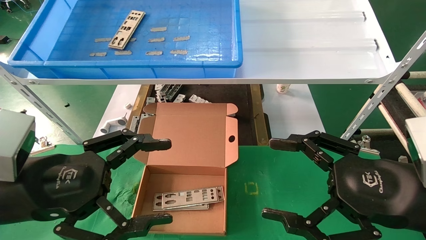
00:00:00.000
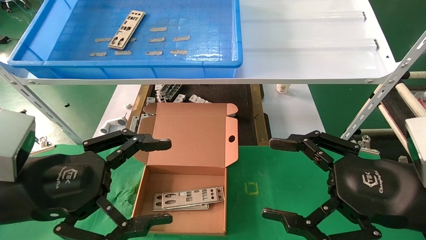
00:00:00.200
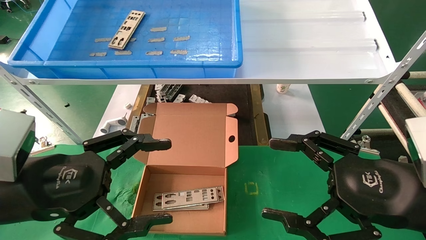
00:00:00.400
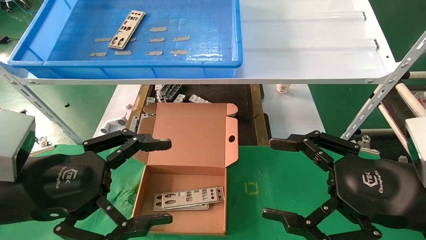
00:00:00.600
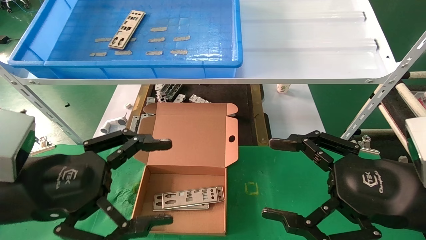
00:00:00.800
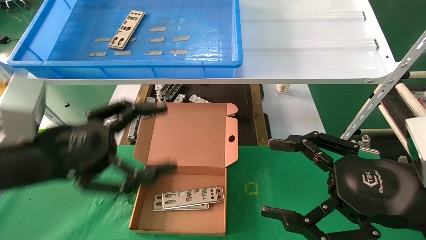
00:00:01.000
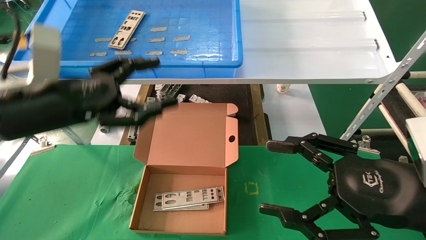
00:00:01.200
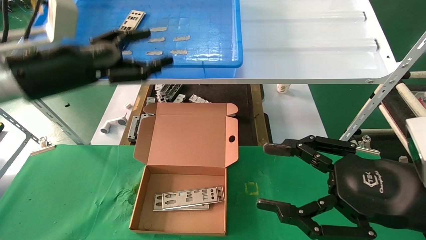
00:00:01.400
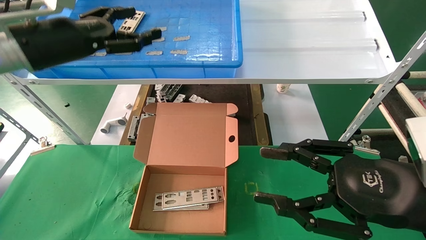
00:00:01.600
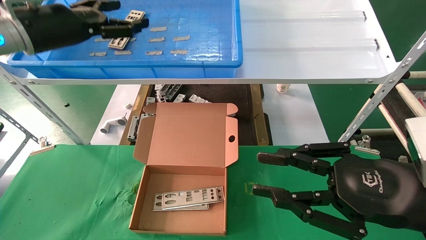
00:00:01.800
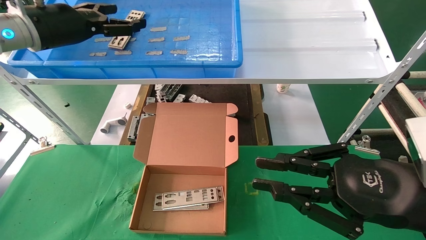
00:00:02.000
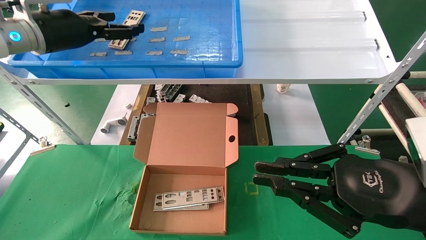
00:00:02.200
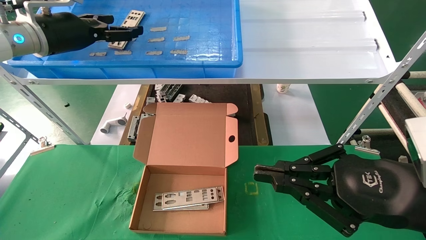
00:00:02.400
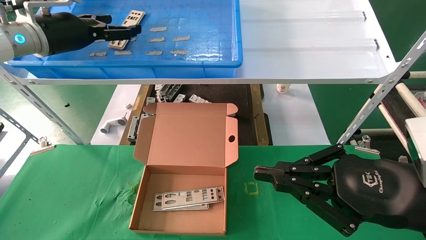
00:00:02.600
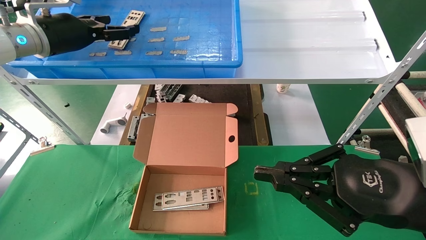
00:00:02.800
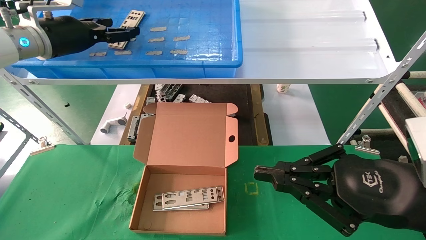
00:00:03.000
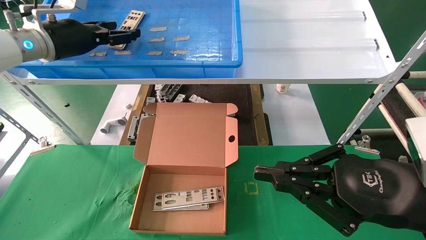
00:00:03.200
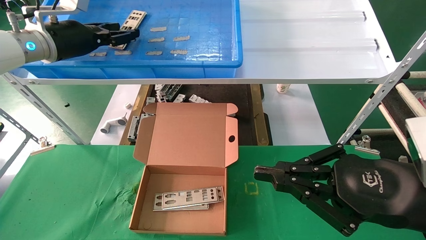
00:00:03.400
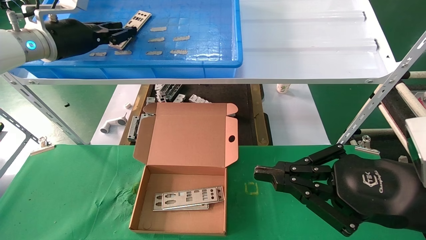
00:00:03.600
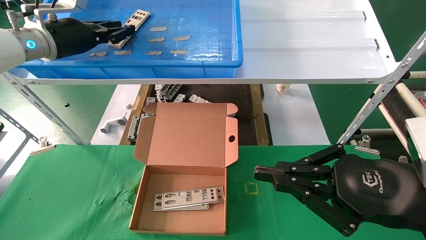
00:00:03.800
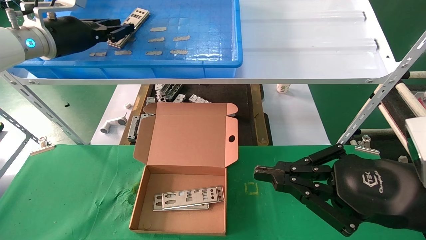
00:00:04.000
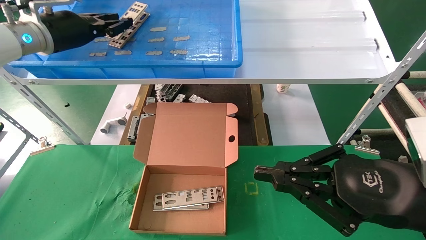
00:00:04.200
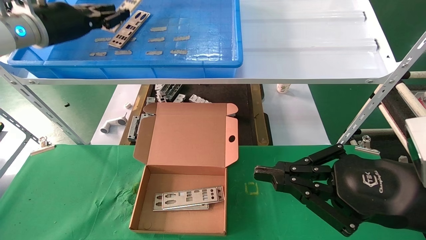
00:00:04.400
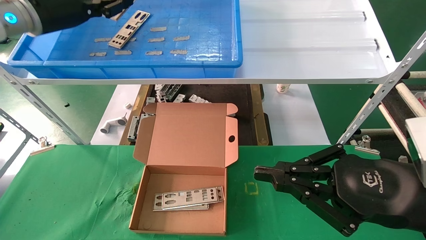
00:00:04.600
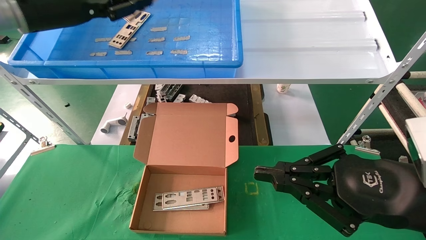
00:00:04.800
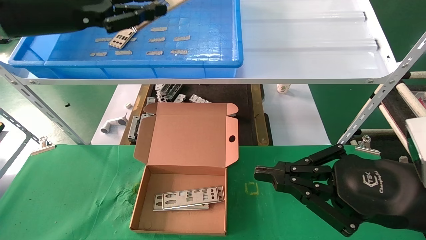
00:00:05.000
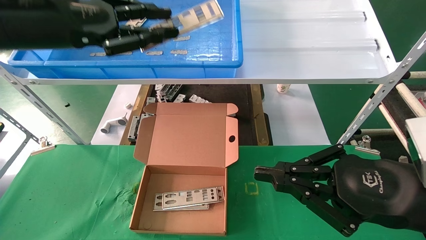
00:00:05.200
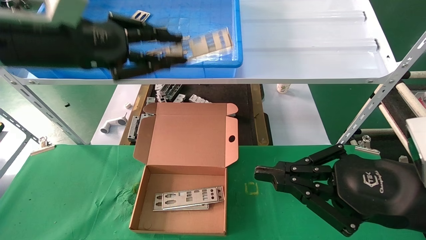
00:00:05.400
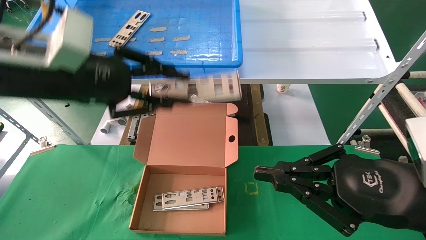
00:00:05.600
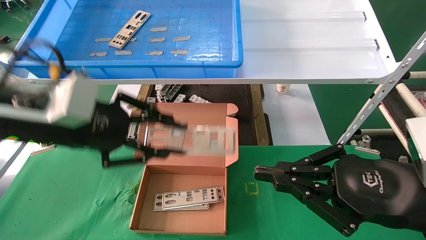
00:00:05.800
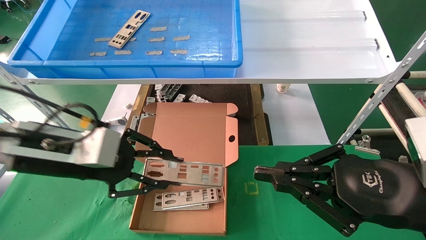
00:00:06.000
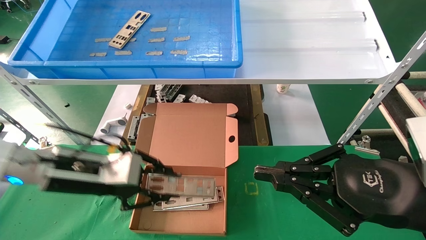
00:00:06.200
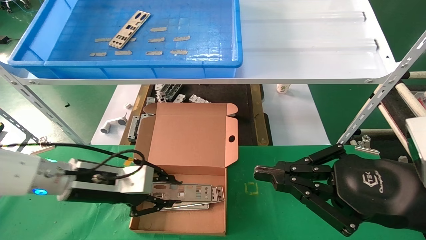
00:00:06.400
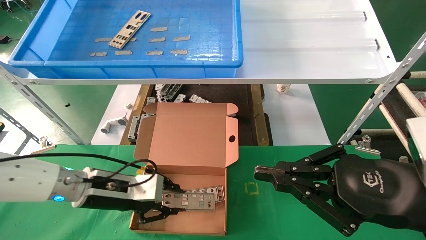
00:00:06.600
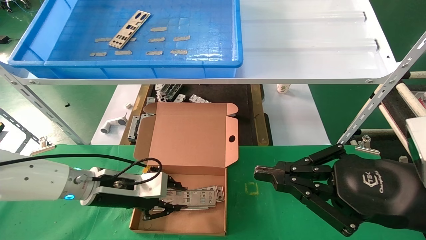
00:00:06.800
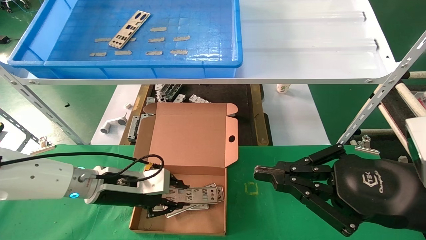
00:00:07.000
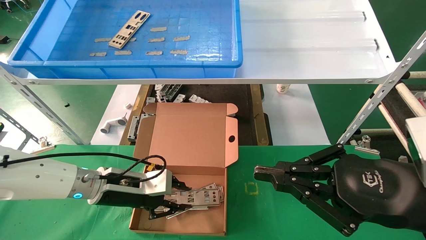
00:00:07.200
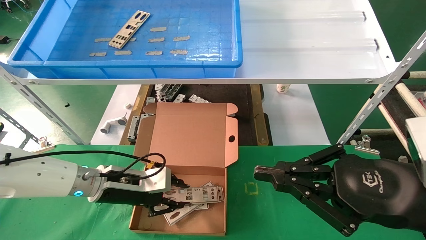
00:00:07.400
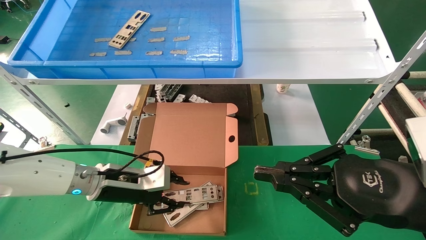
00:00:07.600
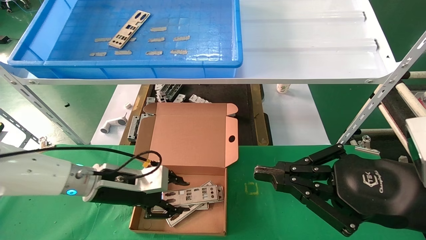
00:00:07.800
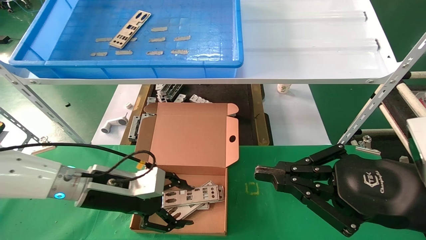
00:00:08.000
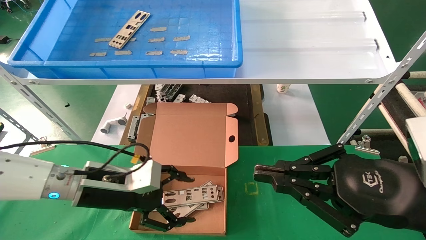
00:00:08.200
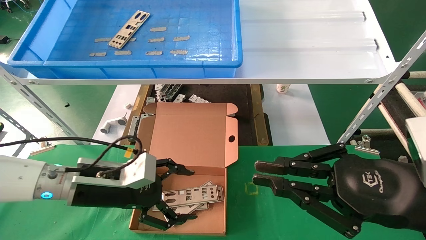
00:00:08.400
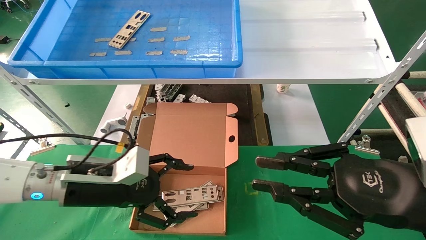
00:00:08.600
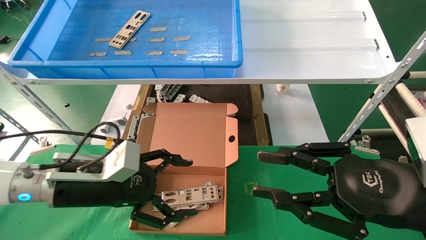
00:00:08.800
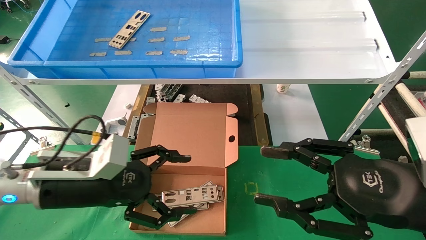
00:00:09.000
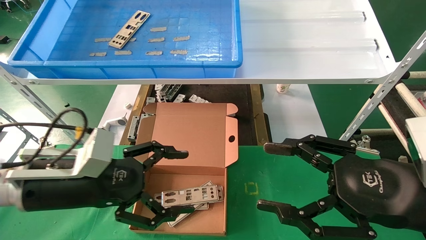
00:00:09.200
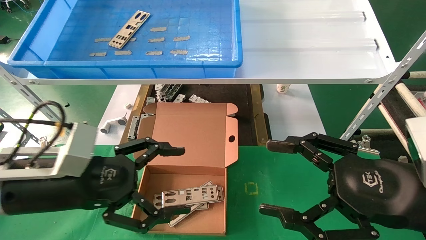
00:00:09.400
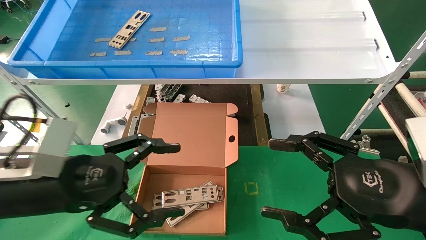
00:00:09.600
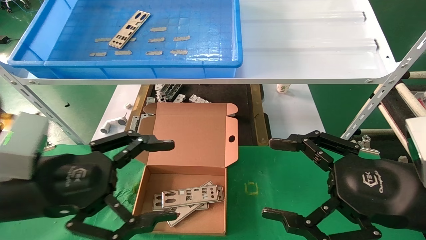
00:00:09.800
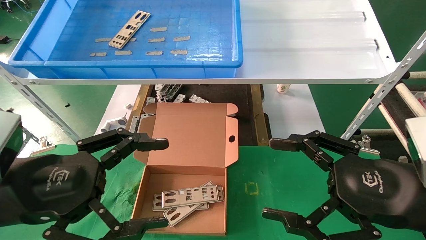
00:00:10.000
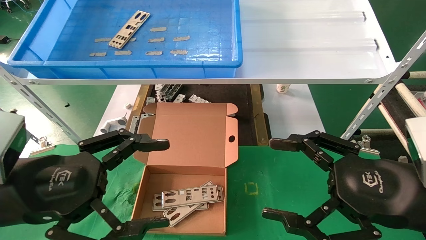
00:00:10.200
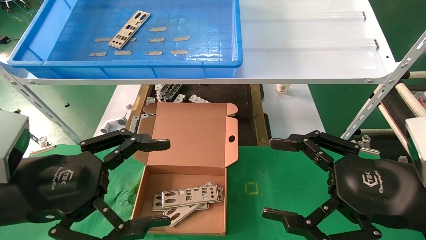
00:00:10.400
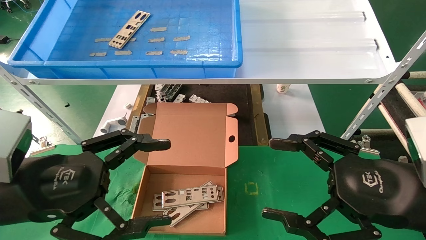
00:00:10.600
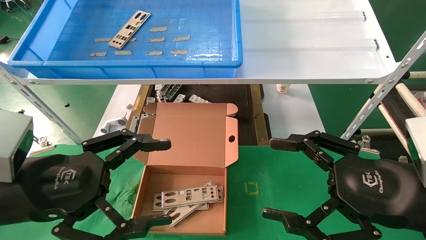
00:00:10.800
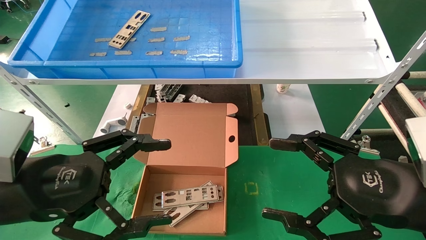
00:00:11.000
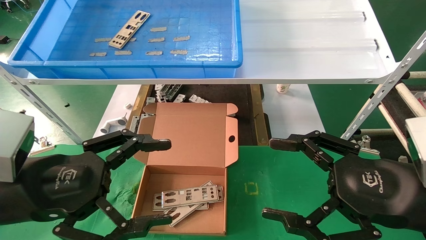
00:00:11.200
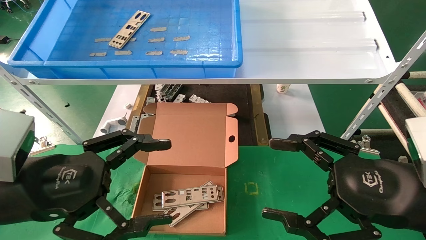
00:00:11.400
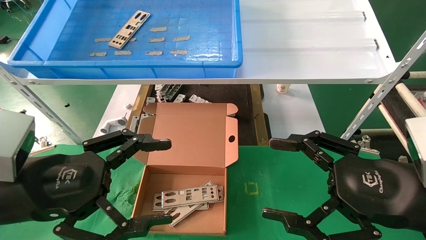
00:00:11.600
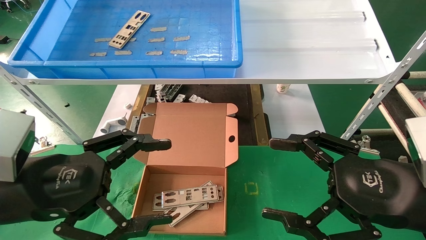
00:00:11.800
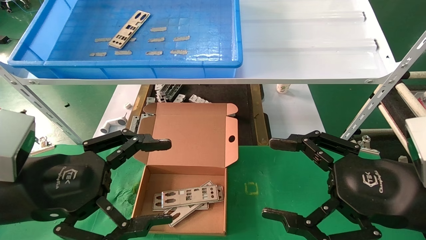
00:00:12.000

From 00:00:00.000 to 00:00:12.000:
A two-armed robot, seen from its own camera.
Task of the whole recording: pick up the parts on the tray and put them in the cardboard box.
Step, from 00:00:01.400 to 00:00:04.200: Pick up the IO bracket from the container box.
Step, from 00:00:04.400 to 00:00:07.600: Place the IO bracket into the ingredient slot.
From 00:00:00.000 to 00:00:01.600: The left gripper shifts roughly 20 cm forward and upward.
From 00:00:01.600 to 00:00:03.000: The right gripper closes. The left gripper travels forward by roughly 5 cm.
From 00:00:03.000 to 00:00:04.400: The left gripper closes.
From 00:00:04.400 to 00:00:06.000: The left gripper travels downward, backward and to the right by some 25 cm.
From 00:00:06.000 to 00:00:07.600: The left gripper moves downward and forward, approximately 15 cm.
From 00:00:07.600 to 00:00:09.000: The left gripper travels backward and upward by about 10 cm, and opens, while the right gripper opens.
From 00:00:09.000 to 00:00:10.400: The right gripper opens up. Meanwhile the left gripper heads backward, covering approximately 10 cm.
From 00:00:10.400 to 00:00:12.000: Neither gripper changes place.

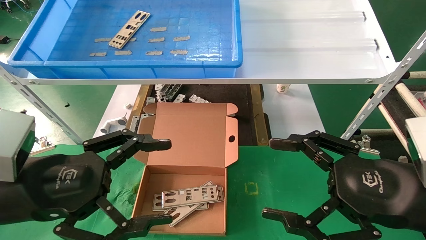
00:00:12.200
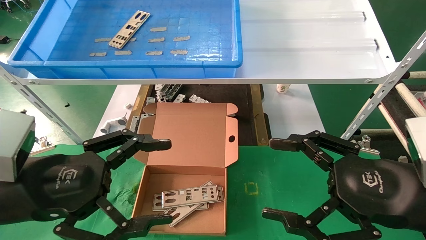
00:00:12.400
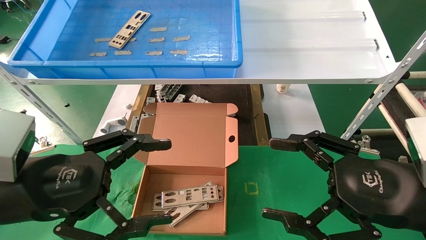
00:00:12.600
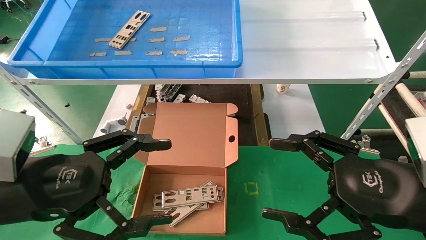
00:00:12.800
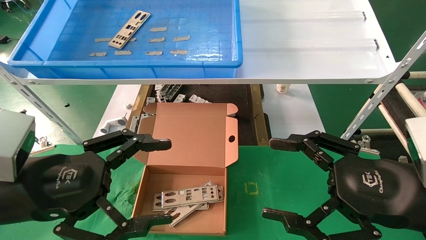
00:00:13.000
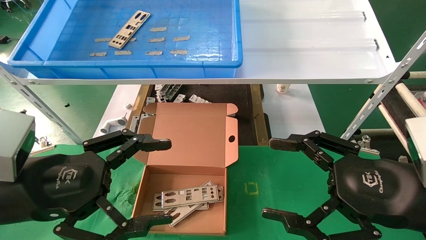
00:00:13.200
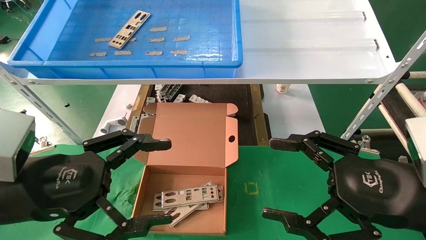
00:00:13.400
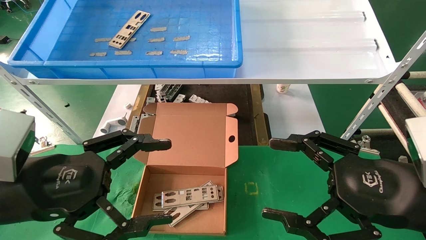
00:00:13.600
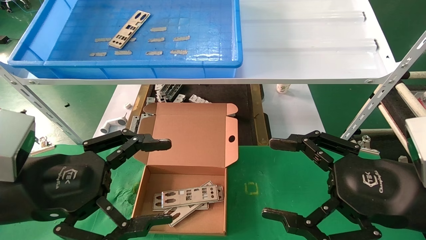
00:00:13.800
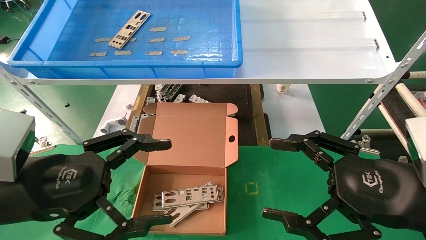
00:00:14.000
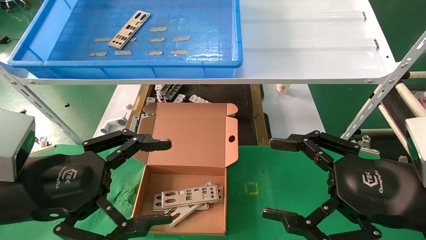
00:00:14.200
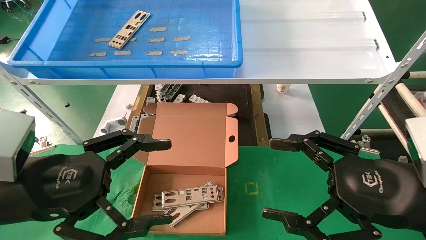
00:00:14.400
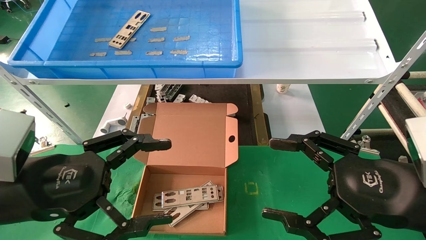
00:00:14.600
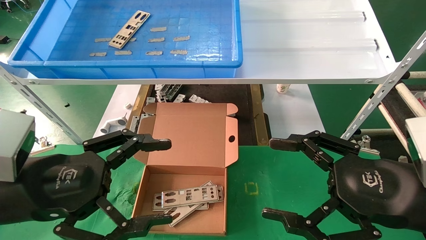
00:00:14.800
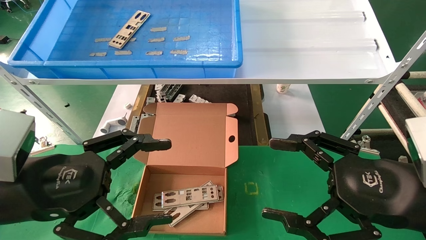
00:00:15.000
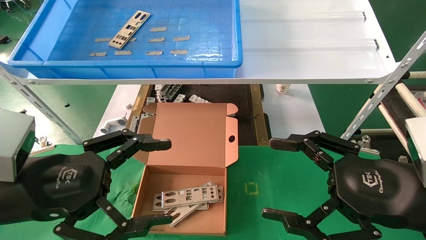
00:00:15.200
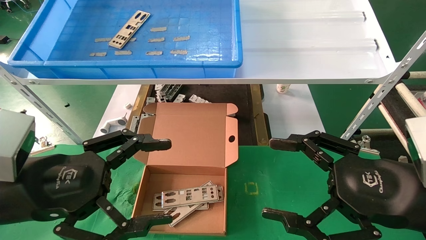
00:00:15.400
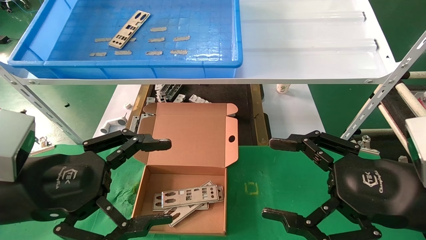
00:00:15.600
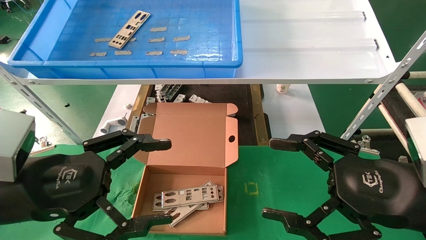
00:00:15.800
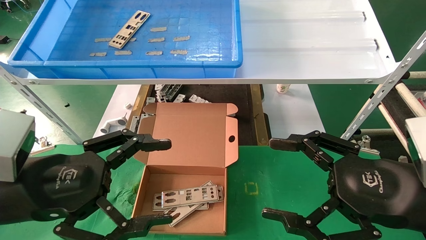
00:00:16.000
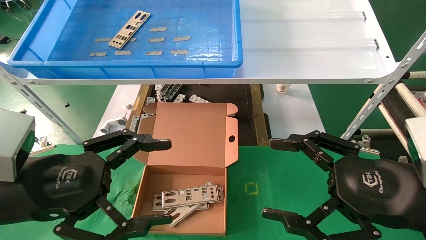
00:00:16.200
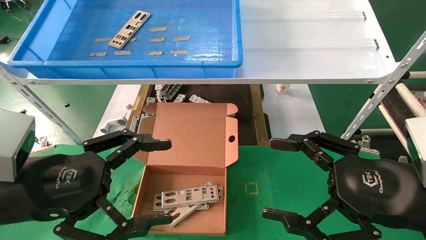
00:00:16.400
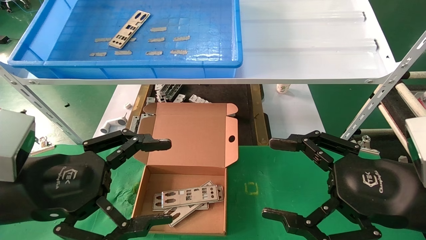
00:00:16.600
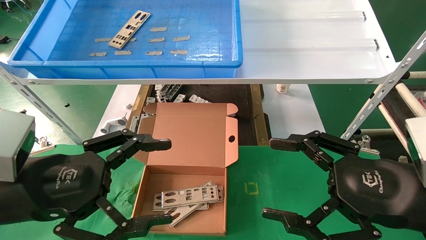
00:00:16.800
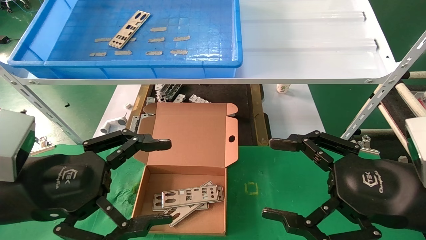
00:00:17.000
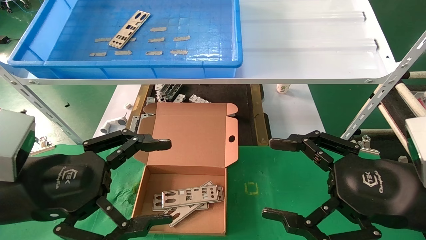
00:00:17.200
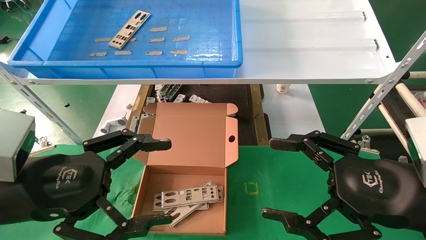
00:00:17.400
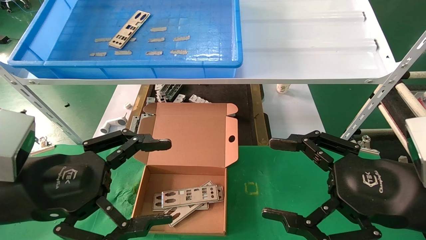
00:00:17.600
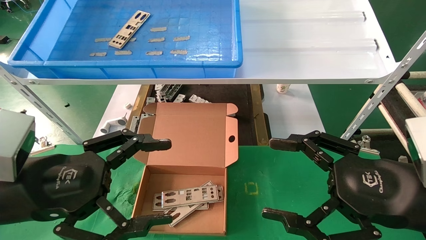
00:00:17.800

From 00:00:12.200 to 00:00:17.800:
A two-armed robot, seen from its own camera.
Task of the whole recording: pick up the parts on the tray and put them in the cardboard box.
From 00:00:12.200 to 00:00:17.800: Both grippers stay put.
